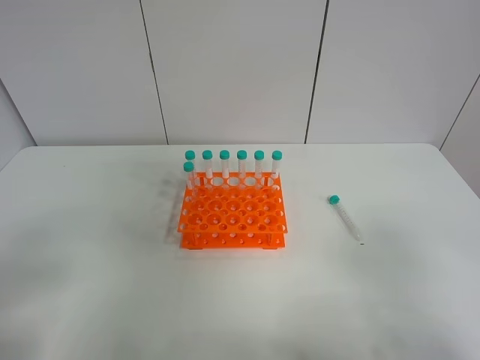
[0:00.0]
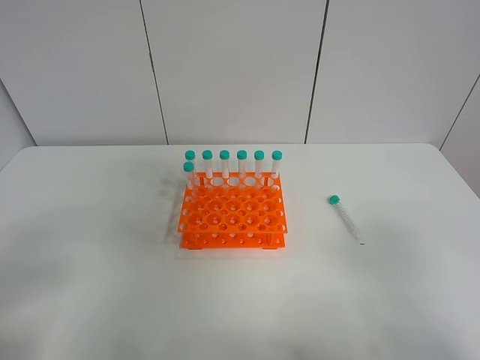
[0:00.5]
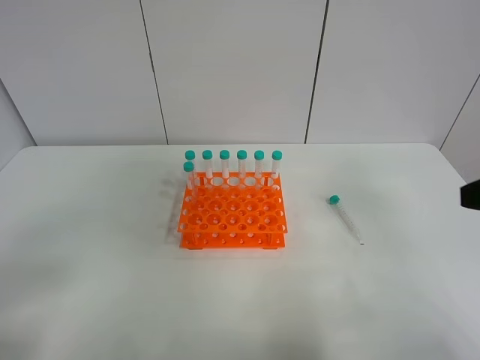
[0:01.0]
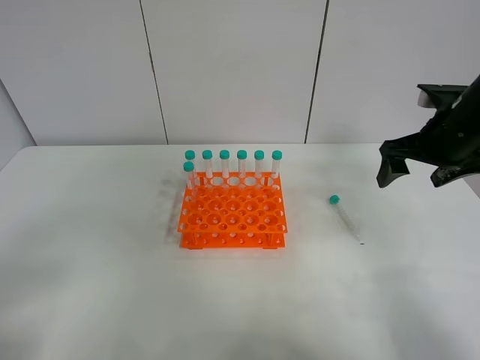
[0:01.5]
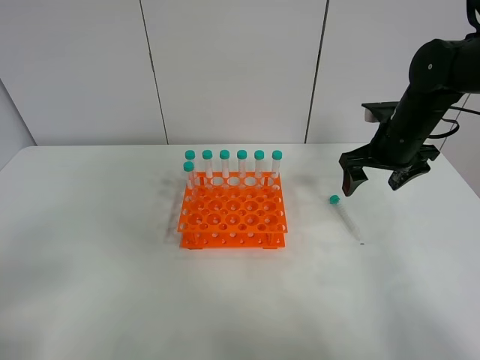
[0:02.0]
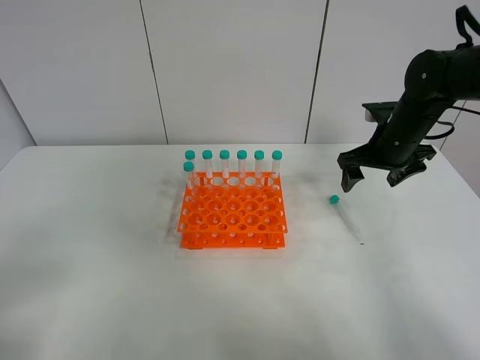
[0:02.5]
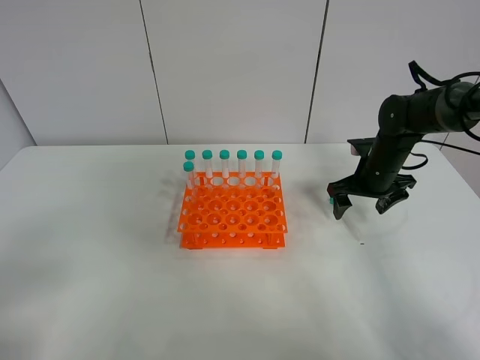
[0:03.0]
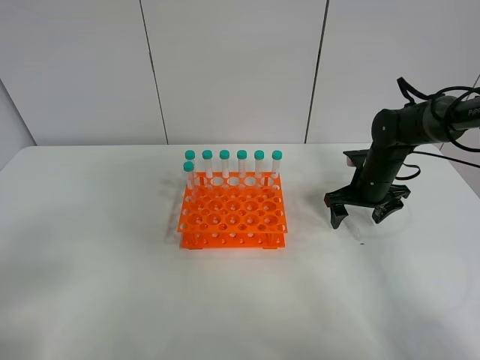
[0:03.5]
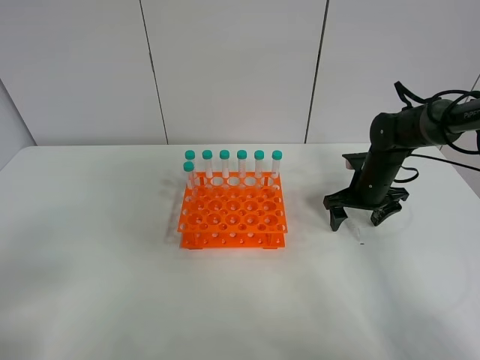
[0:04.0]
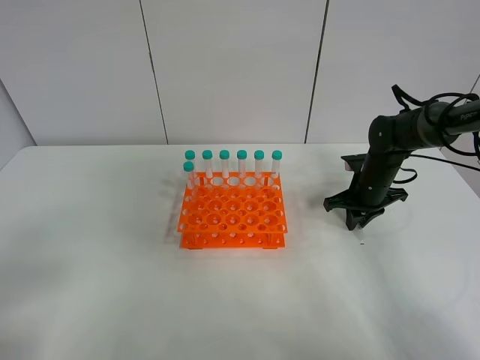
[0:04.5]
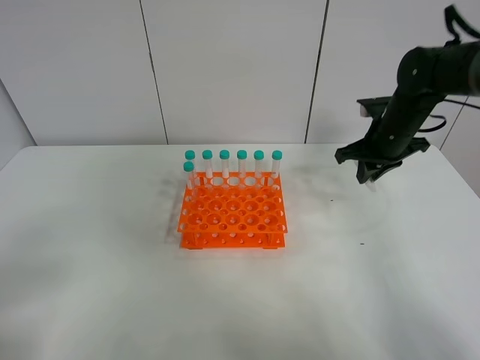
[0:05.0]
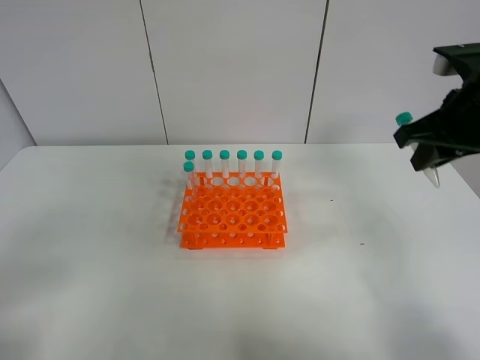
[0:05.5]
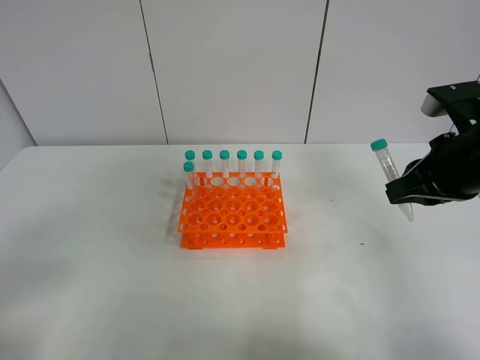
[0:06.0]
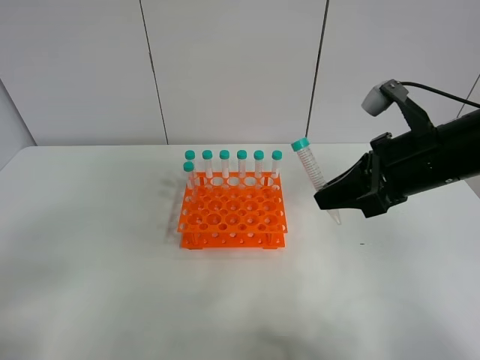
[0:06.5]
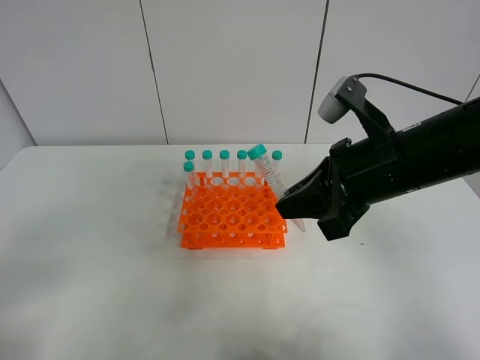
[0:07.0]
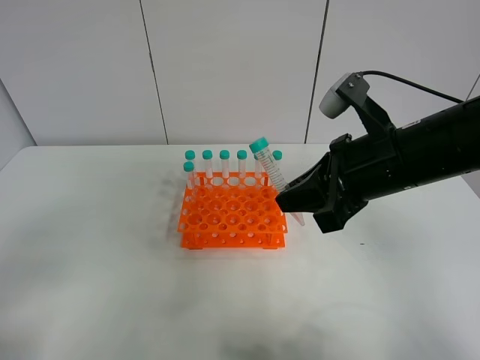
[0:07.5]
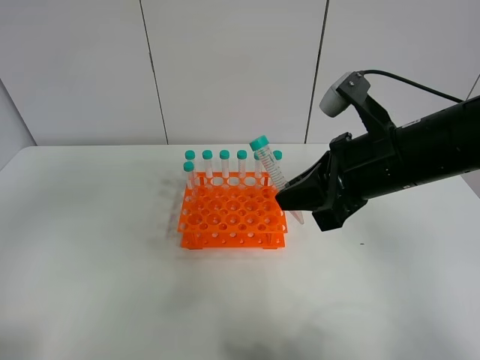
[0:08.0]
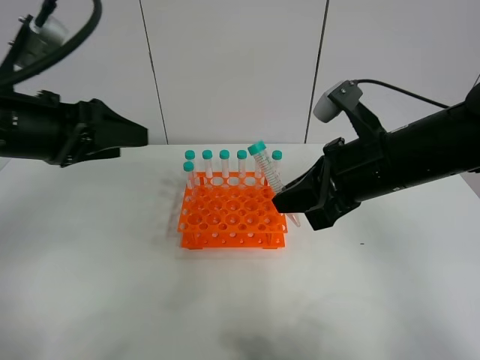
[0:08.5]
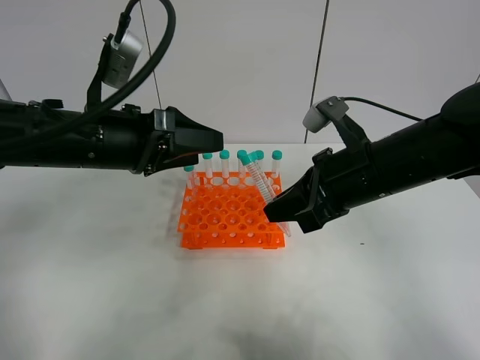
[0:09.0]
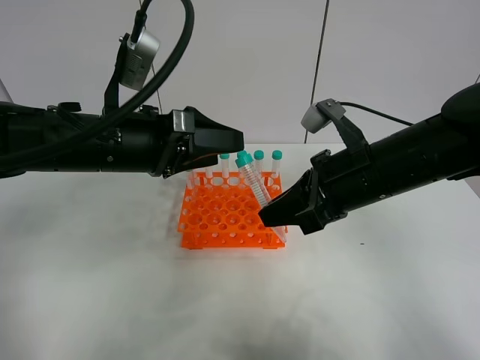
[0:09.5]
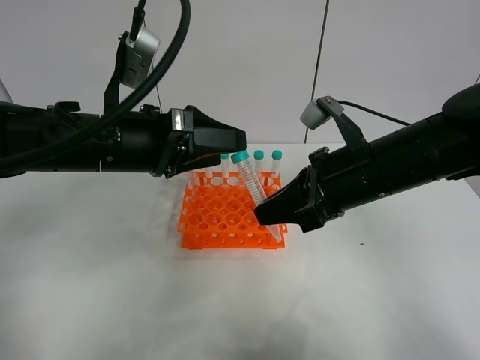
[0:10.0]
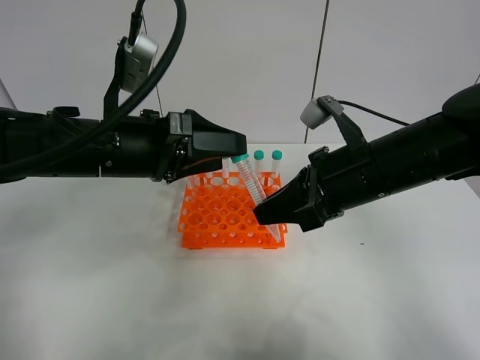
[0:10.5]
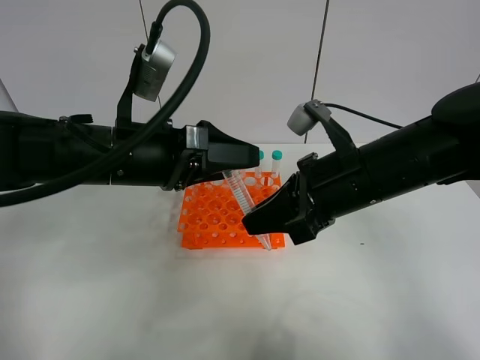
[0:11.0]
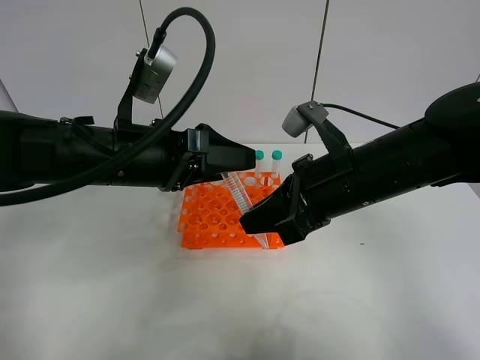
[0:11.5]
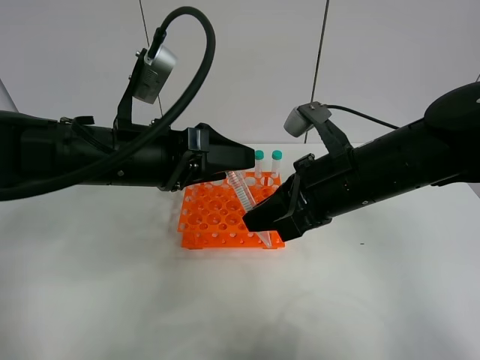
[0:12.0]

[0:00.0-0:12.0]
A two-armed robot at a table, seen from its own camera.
Task of the whole recording: Put the test tube on the table back onto the test tube rack.
Step, 0:00.0 to 0:04.5: Pick up the test tube with the right gripper.
0:00.0 to 0:02.0: The right gripper shifts some 35 cm forward.
0:02.0 to 0:04.0: The right gripper is displaced downward by roughly 10 cm.
0:04.0 to 0:06.0: The right gripper shifts some 25 cm upward and backward, and closes.
0:06.0 to 0:08.0: The left gripper heads upward and forward, covering some 15 cm, while the right gripper moves to the left, roughly 10 cm.
0:08.0 to 0:10.0: The left gripper is displaced to the right, forward and downward by approximately 25 cm.
0:10.0 to 0:12.0: The grippers move only a little.

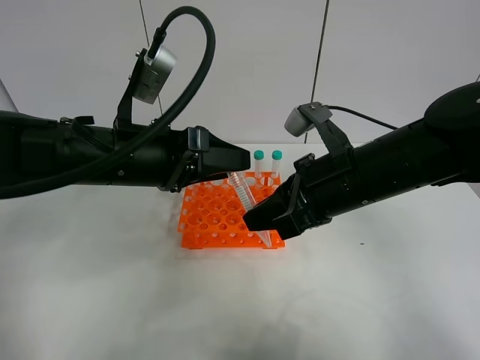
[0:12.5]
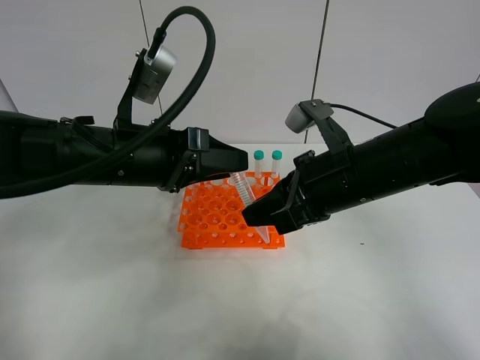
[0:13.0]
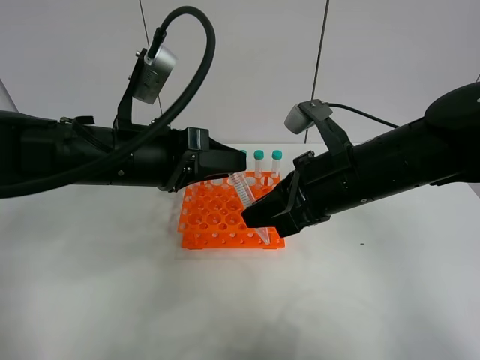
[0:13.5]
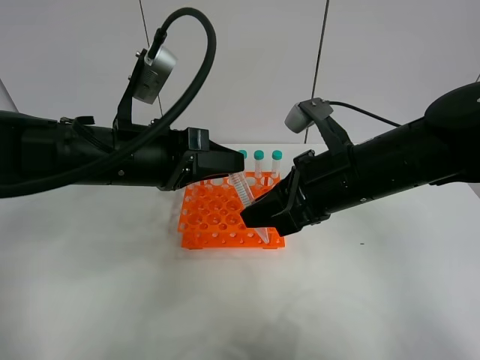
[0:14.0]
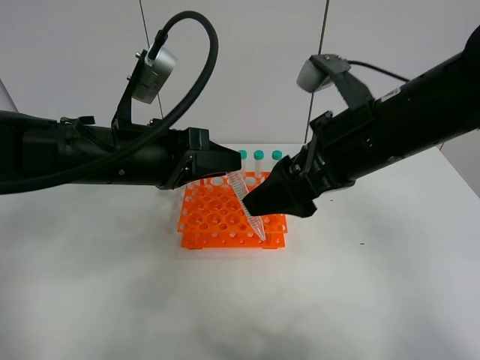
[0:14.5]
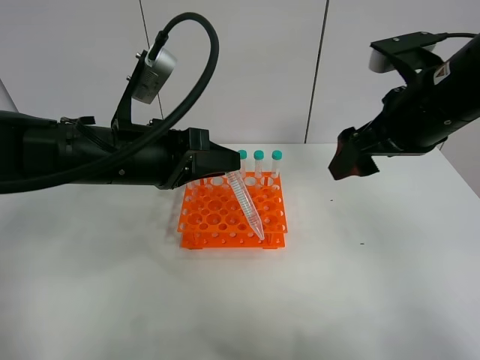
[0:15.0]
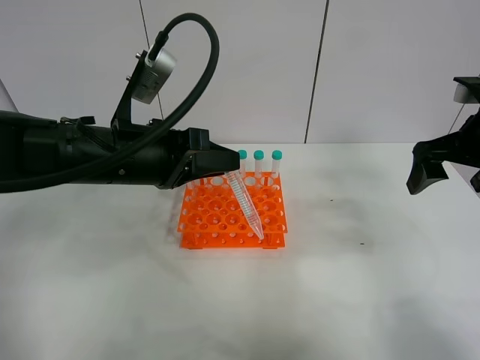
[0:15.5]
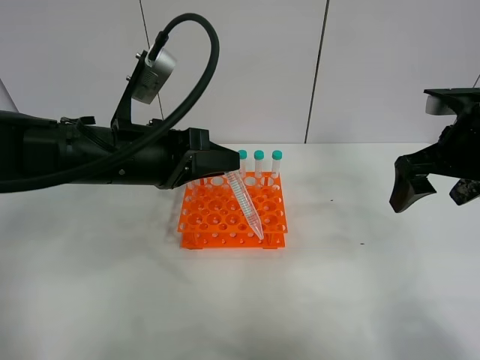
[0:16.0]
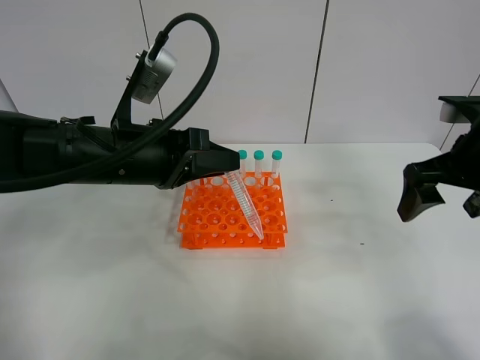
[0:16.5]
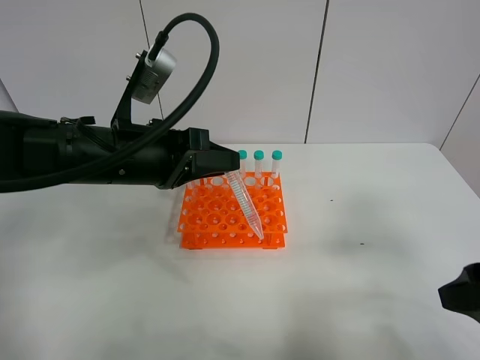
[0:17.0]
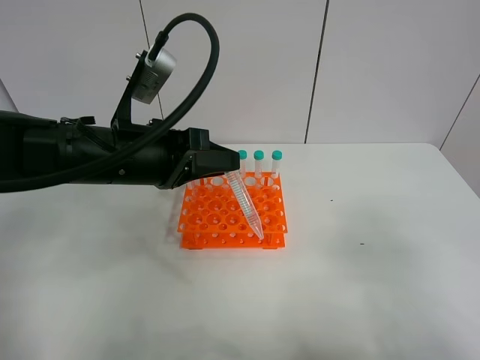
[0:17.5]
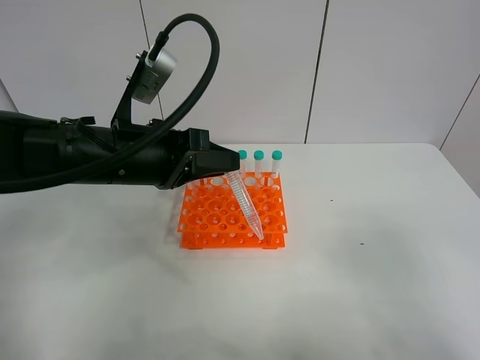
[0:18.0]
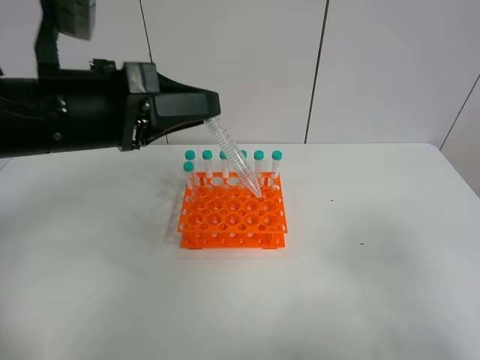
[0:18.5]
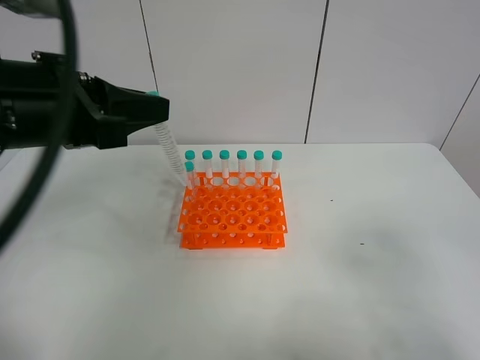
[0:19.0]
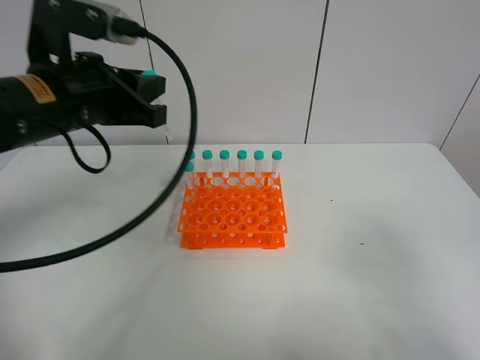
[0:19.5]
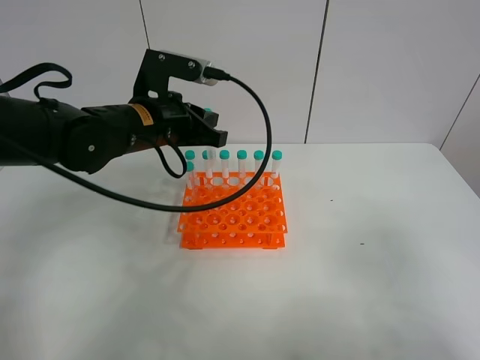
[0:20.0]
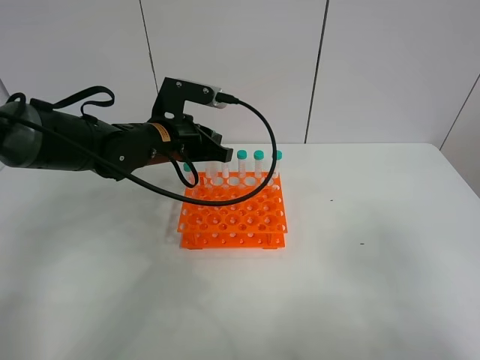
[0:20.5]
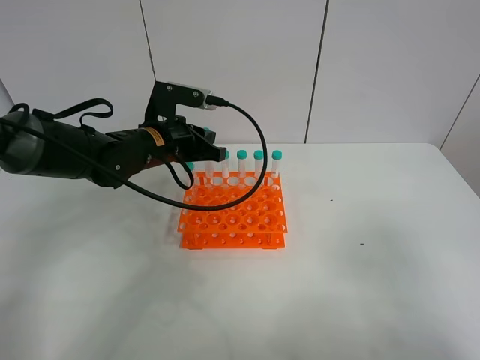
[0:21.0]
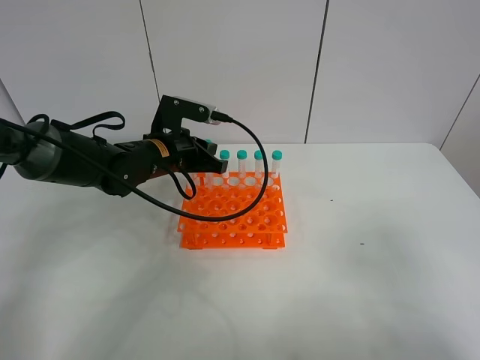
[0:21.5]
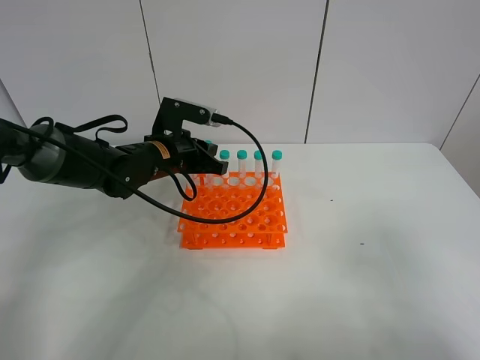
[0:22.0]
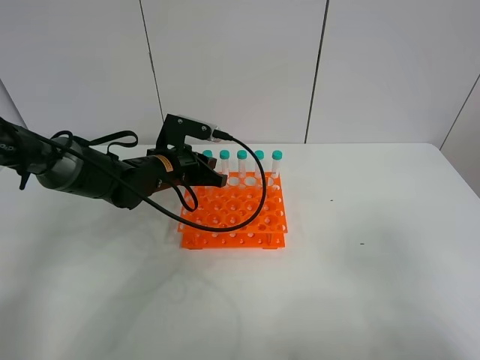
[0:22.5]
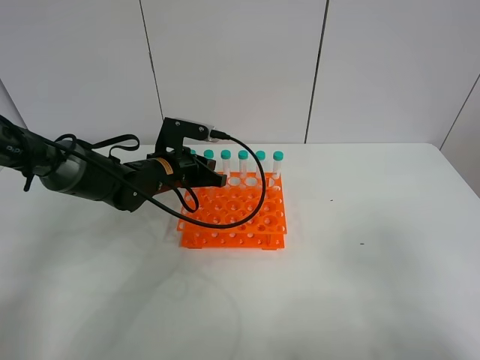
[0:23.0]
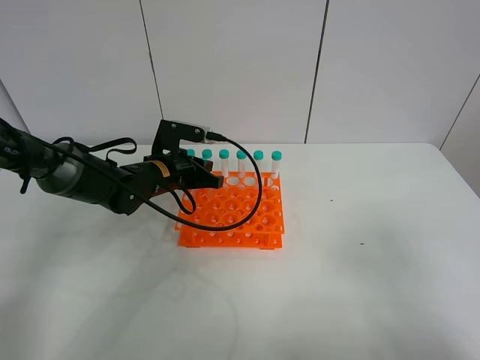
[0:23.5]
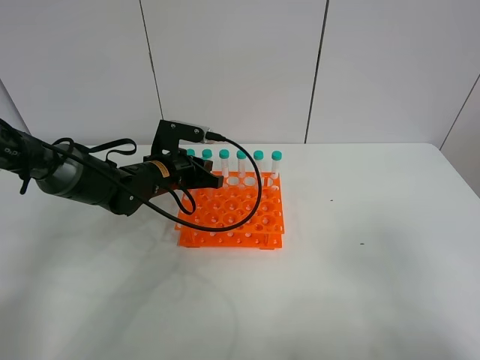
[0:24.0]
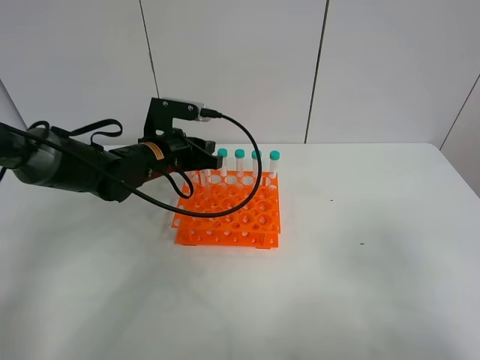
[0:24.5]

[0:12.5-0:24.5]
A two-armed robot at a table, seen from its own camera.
Task of the whole recording: Put the test tube on the table back onto the test tube rack.
Step, 0:14.5 to 0:24.0: Place the test tube on the test tube rack with the left gripper.
0:12.5 to 0:14.5: The left gripper closes up; the right gripper shifts some 5 cm upward, and opens.
0:14.5 to 0:16.5: The right gripper heads to the right, covering some 15 cm.
0:16.5 to 0:18.5: The left gripper travels upward by some 5 cm. The right gripper travels backward by about 25 cm.
0:18.5 to 0:20.5: The left gripper travels forward and downward by about 20 cm.
0:20.5 to 0:22.5: The left gripper travels downward by roughly 5 cm.
0:22.5 to 0:24.5: The left gripper opens its fingers.

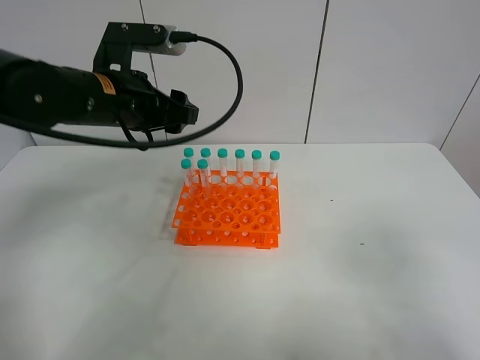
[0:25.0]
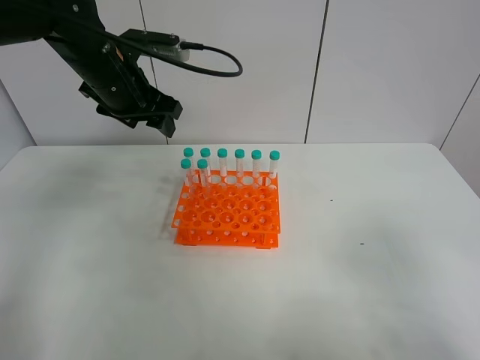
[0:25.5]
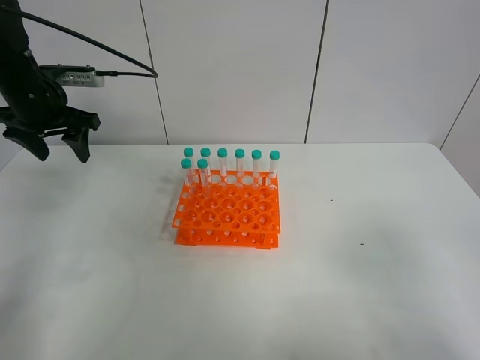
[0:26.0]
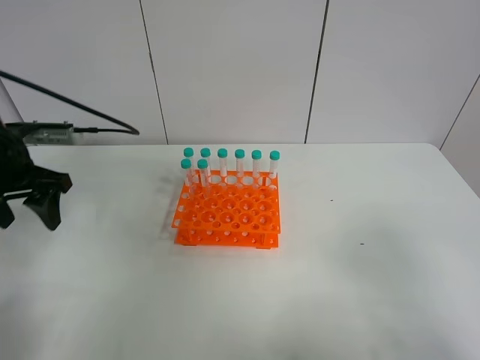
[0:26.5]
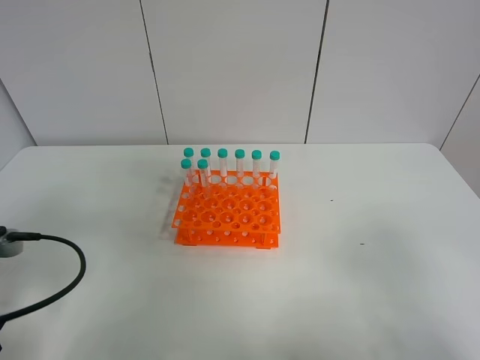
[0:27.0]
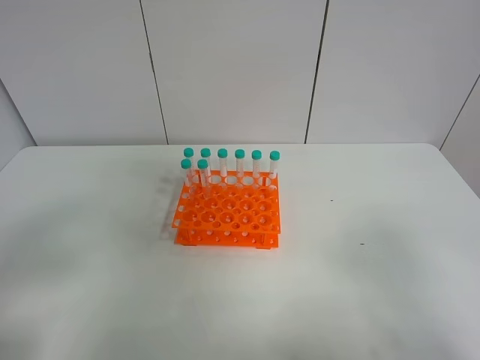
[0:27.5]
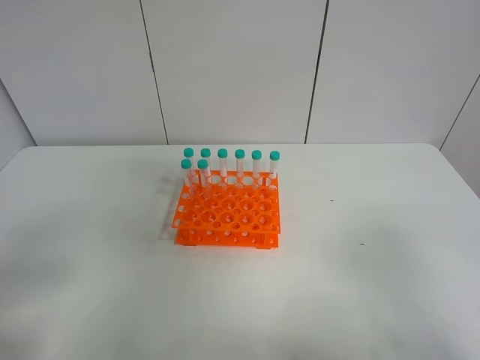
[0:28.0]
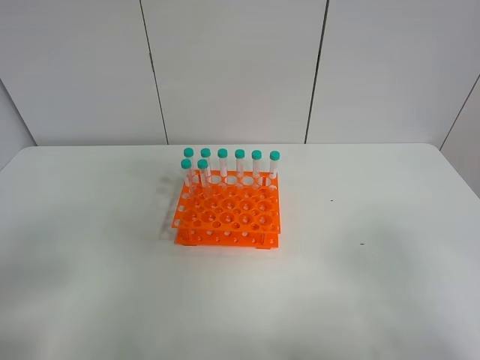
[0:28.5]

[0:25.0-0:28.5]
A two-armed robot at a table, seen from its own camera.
Task of the whole recording: Put the test tube on the table back onto the test tube rack.
0:25.0 to 0:27.0: The left gripper heads backward, to the left and downward, covering approximately 25 cm.
0:27.0 to 0:28.5: The left gripper heads backward and upward, covering about 15 cm.
